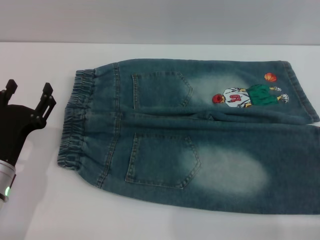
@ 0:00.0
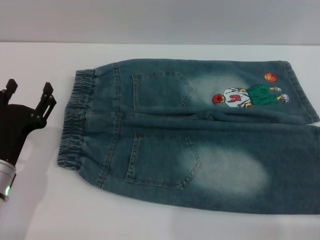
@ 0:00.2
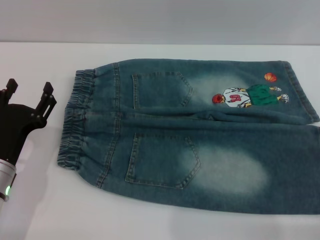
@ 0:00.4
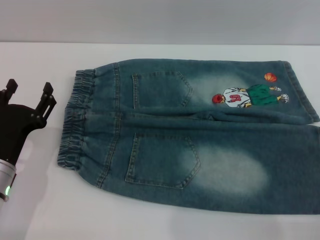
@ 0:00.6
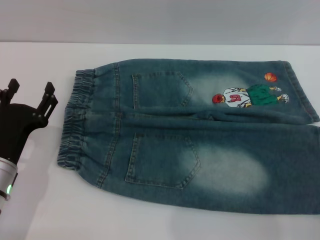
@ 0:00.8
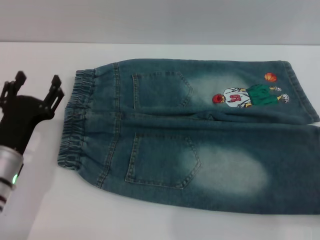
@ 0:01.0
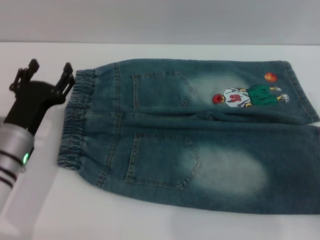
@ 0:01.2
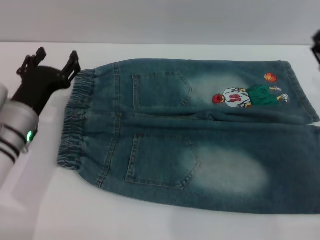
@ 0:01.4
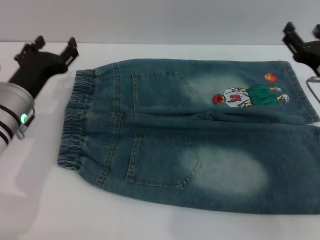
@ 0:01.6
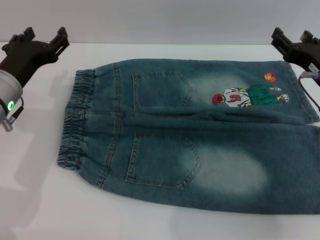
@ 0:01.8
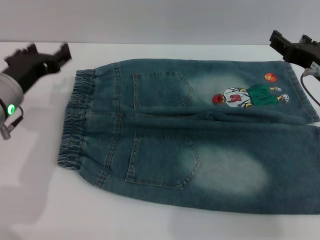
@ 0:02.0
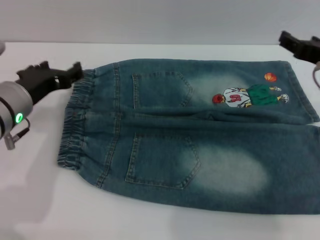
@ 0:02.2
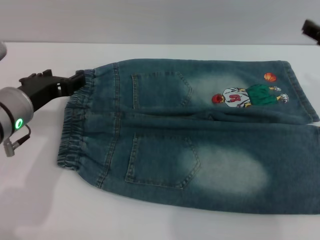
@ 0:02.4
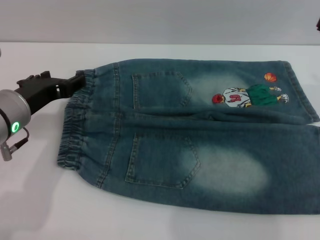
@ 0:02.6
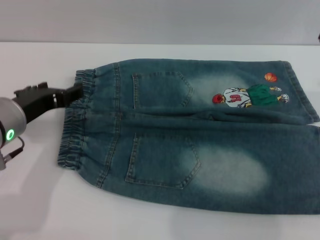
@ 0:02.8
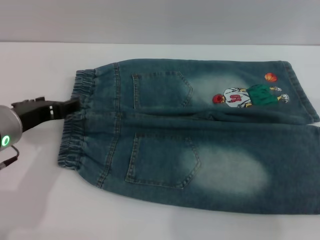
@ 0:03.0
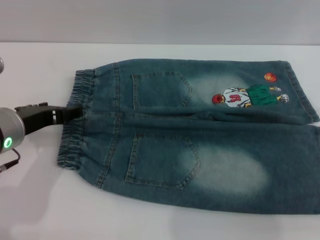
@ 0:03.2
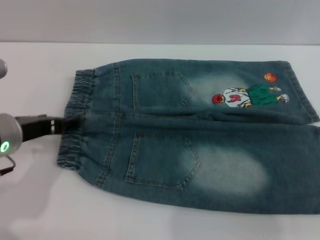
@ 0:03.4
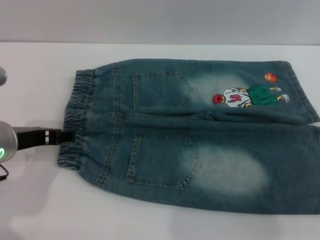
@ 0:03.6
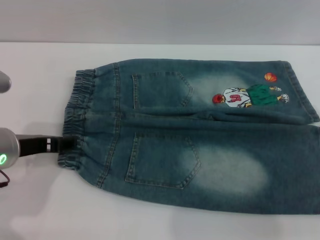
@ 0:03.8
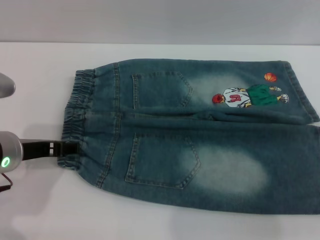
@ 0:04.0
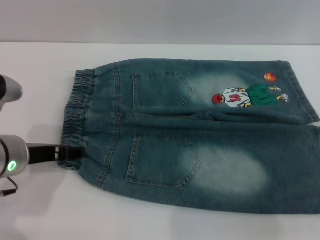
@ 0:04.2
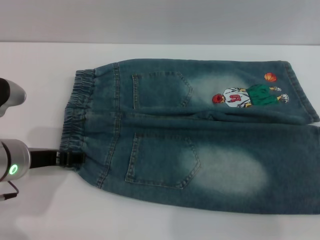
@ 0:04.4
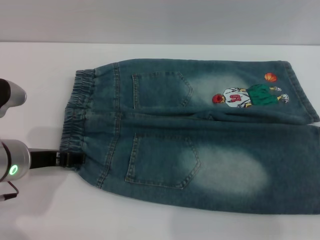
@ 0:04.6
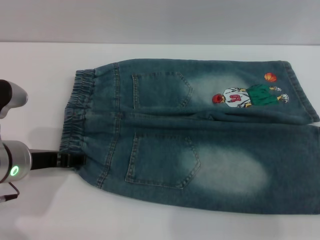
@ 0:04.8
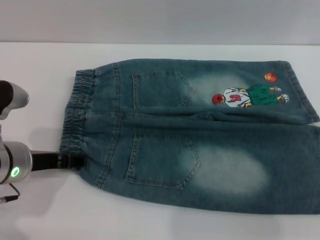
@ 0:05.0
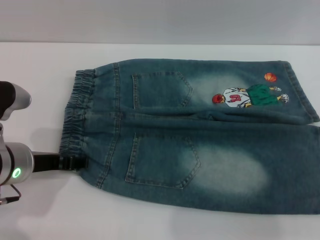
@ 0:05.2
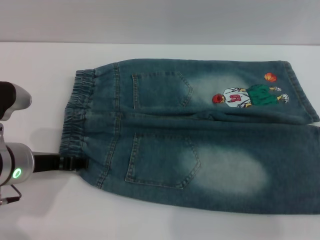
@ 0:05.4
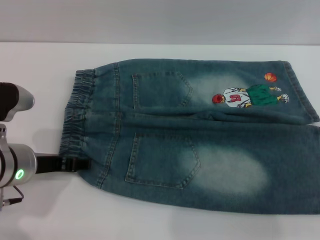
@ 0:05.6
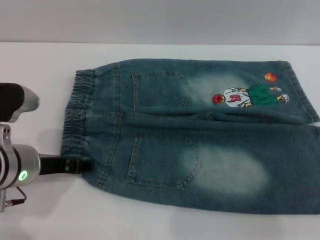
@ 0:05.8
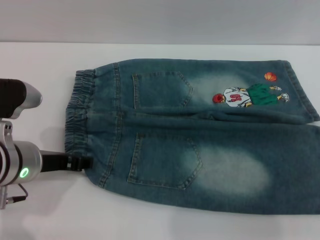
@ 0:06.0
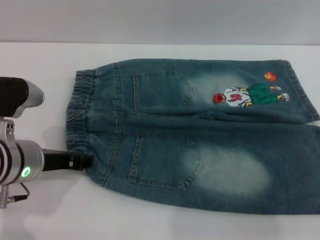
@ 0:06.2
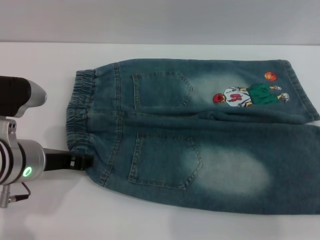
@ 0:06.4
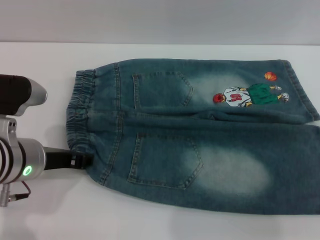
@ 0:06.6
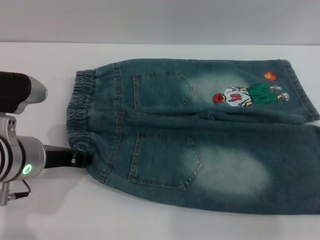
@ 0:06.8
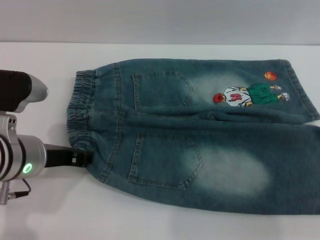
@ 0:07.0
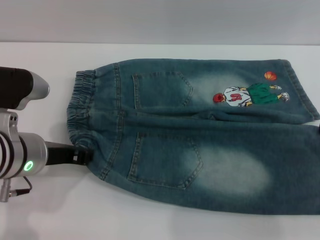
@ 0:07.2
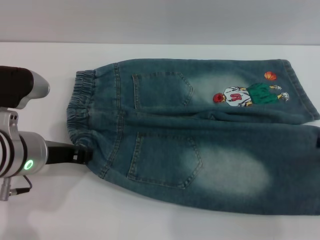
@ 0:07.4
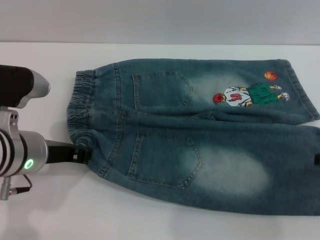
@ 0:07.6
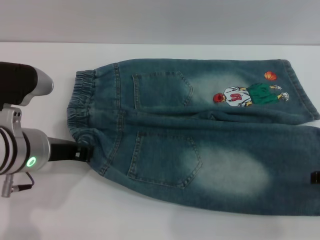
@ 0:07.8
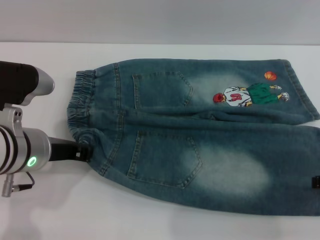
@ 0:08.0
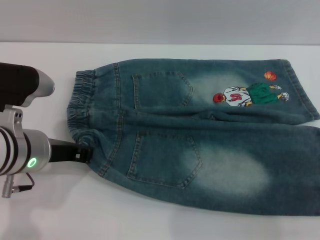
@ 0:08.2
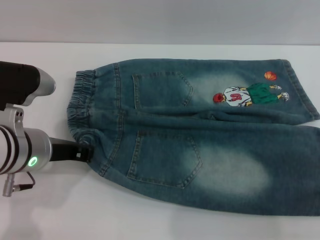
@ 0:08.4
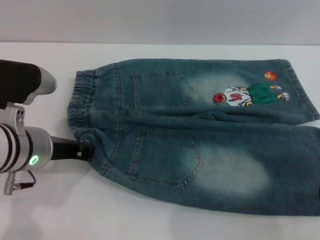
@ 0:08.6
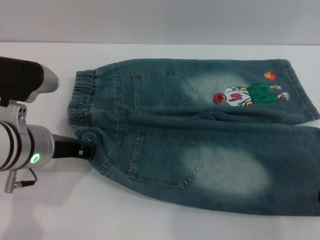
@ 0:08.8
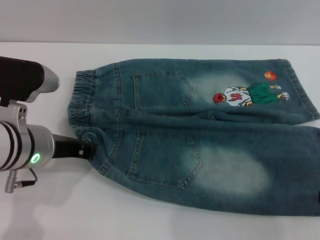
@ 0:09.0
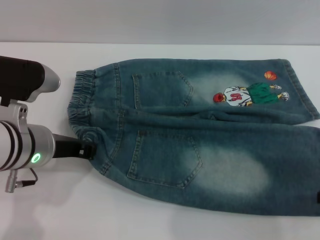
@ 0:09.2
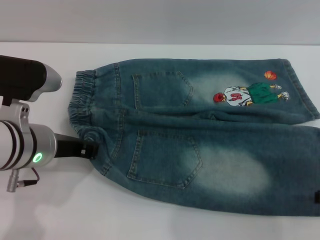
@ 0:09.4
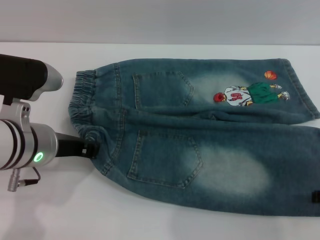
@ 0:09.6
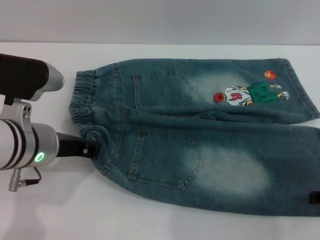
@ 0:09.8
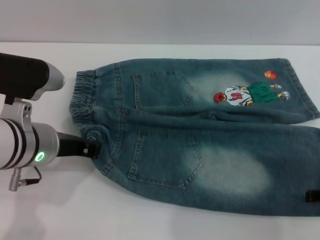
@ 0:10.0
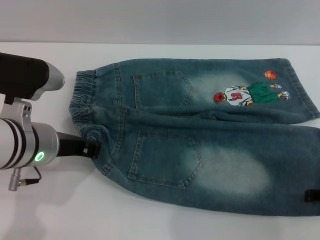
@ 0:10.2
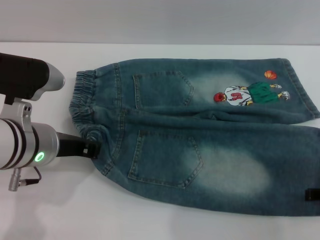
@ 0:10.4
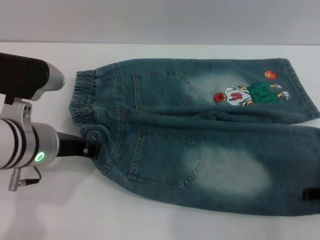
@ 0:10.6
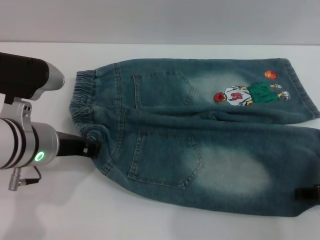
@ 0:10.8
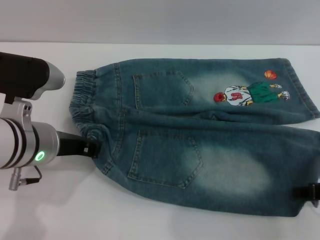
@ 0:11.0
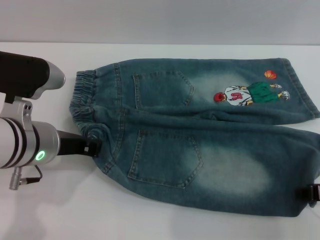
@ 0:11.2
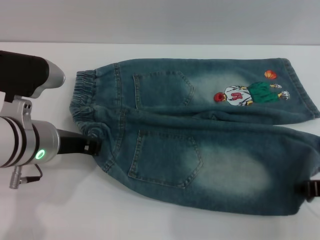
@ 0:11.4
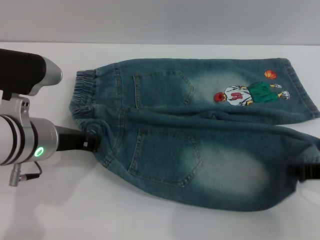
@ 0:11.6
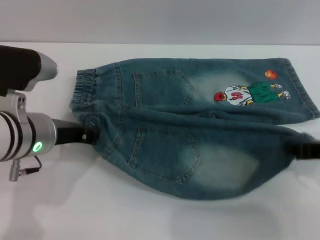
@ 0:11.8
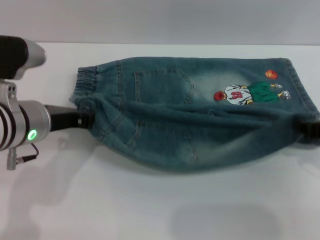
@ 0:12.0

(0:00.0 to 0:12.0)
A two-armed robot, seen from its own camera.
0:00.0 - 0:01.6: The right gripper shifts approximately 15 cm forward and to the left, while the left gripper goes roughly 10 cm forward and upward.
0:01.6 - 0:03.0: The left gripper moves upward and backward, approximately 10 cm, while the right gripper moves upward, about 10 cm.
0:04.4 - 0:06.0: There are only small adjustments of the grippers.
0:06.0 - 0:07.6: The left gripper closes up.
0:07.6 - 0:10.4: The grippers stay close to where they were, moving slightly.
0:10.4 - 0:12.0: The right gripper ends up about 5 cm from where it was, and closes.

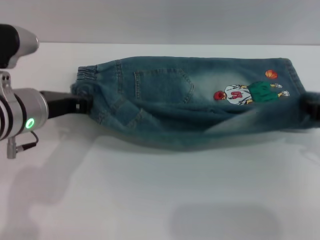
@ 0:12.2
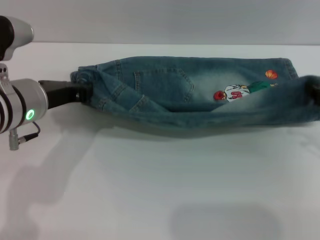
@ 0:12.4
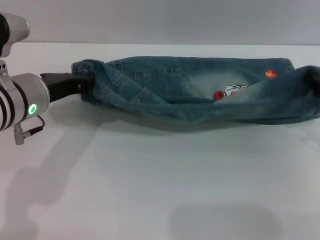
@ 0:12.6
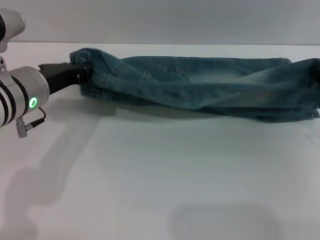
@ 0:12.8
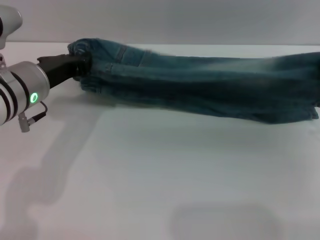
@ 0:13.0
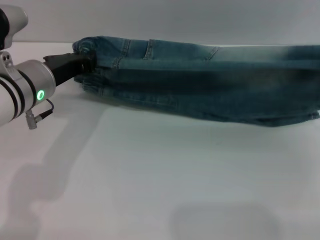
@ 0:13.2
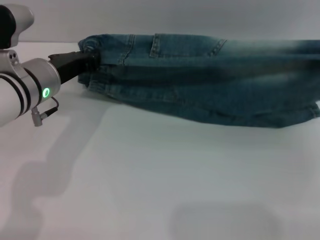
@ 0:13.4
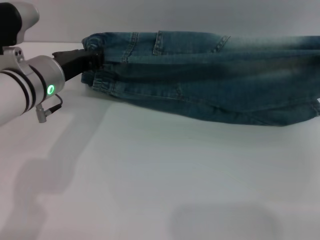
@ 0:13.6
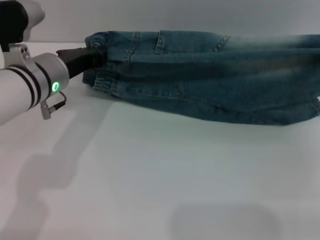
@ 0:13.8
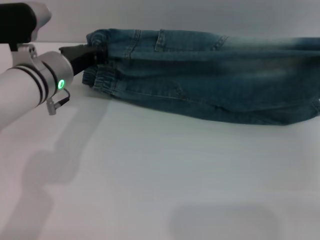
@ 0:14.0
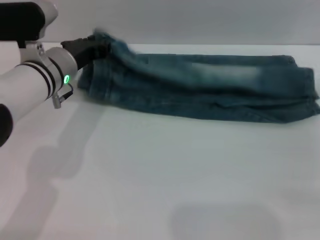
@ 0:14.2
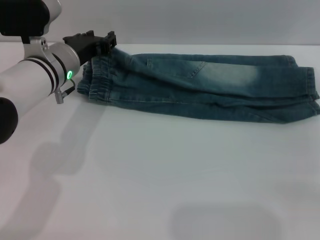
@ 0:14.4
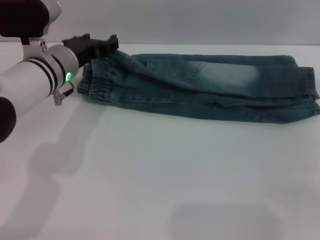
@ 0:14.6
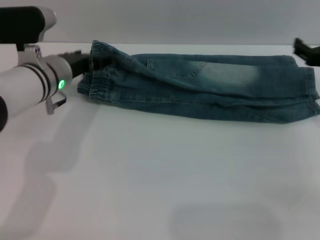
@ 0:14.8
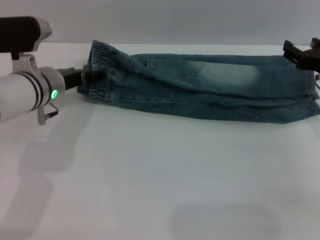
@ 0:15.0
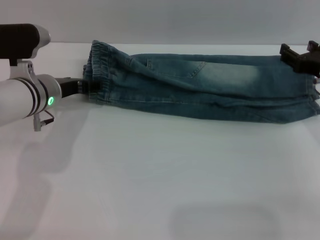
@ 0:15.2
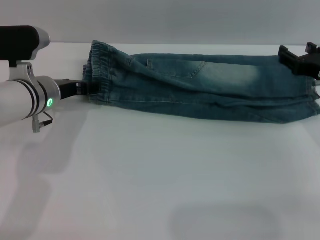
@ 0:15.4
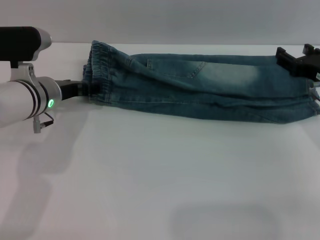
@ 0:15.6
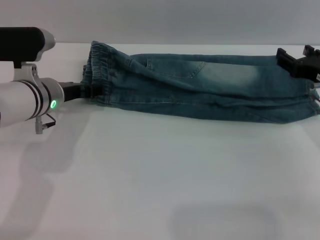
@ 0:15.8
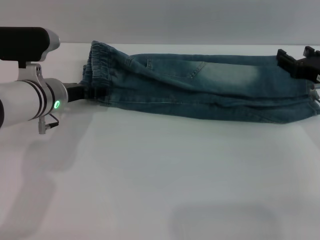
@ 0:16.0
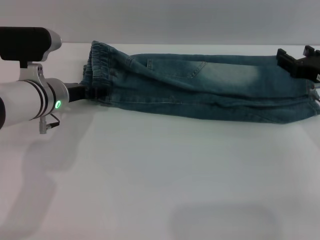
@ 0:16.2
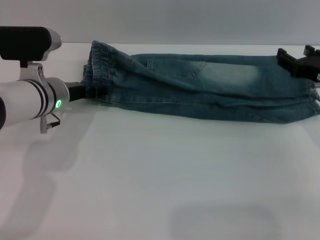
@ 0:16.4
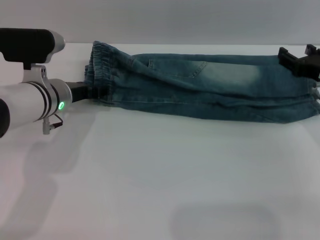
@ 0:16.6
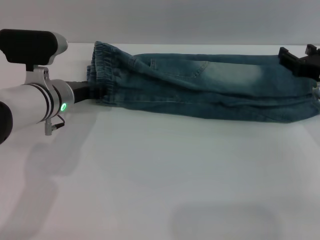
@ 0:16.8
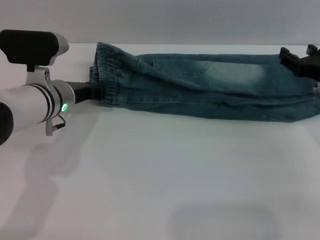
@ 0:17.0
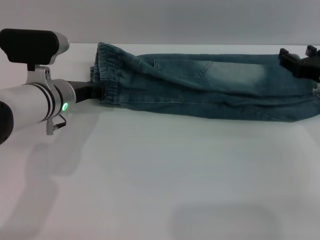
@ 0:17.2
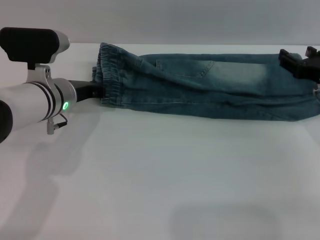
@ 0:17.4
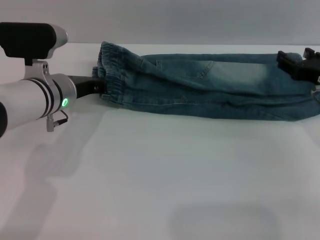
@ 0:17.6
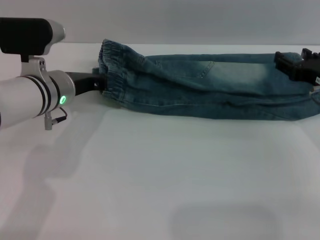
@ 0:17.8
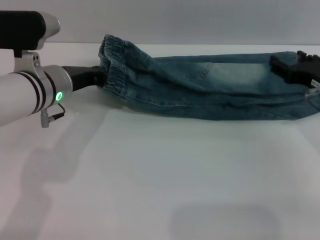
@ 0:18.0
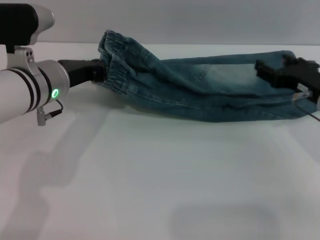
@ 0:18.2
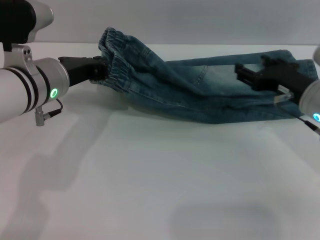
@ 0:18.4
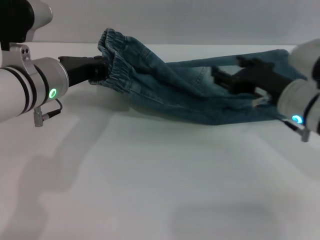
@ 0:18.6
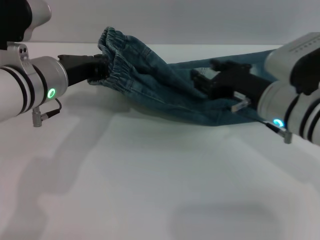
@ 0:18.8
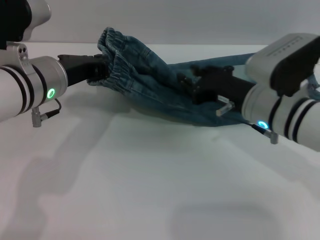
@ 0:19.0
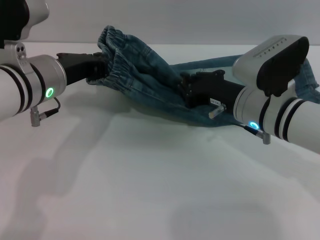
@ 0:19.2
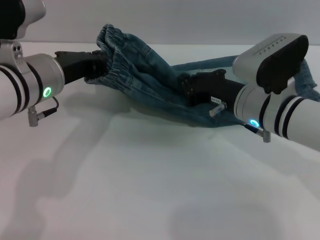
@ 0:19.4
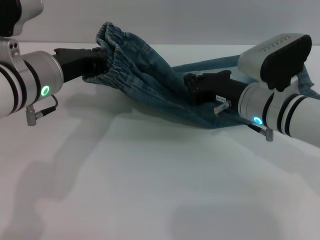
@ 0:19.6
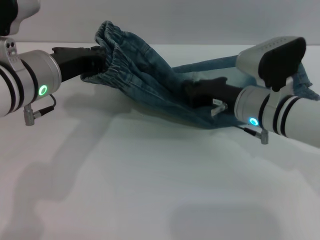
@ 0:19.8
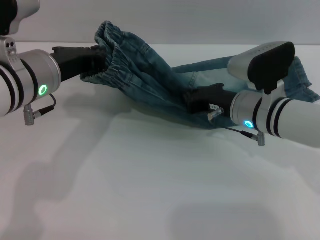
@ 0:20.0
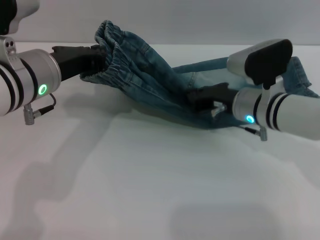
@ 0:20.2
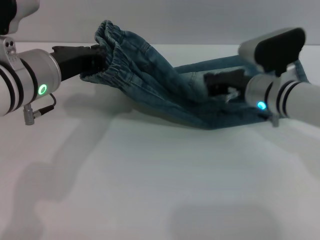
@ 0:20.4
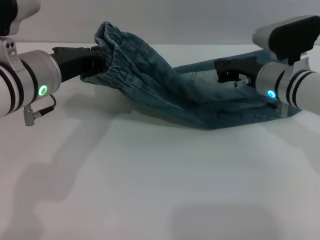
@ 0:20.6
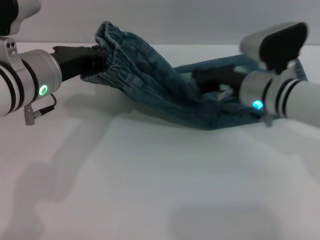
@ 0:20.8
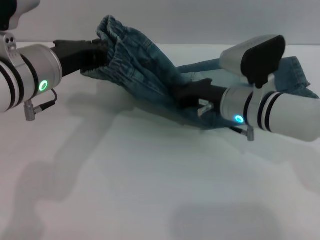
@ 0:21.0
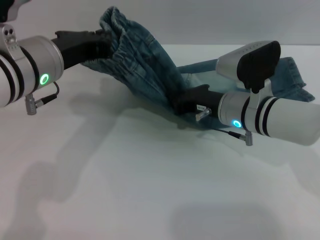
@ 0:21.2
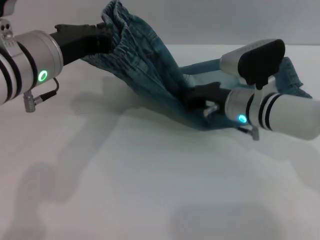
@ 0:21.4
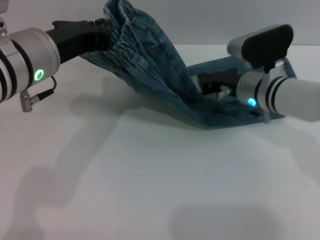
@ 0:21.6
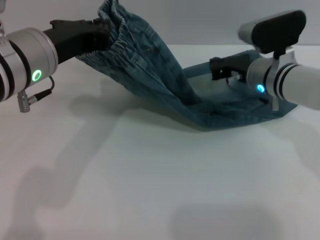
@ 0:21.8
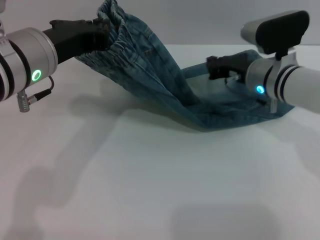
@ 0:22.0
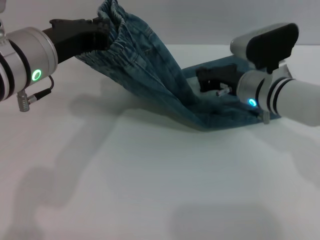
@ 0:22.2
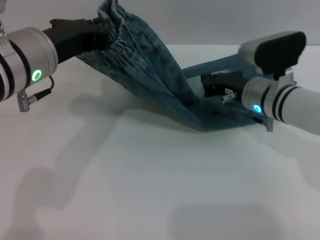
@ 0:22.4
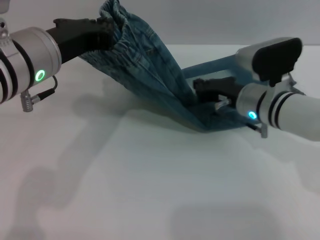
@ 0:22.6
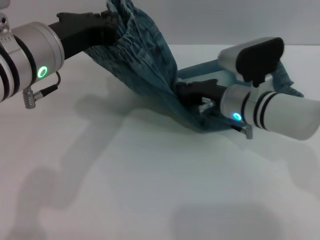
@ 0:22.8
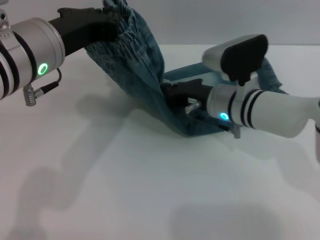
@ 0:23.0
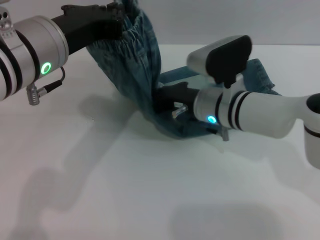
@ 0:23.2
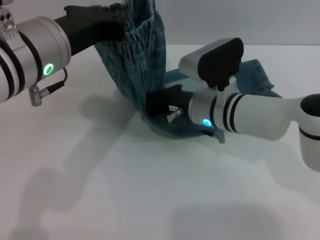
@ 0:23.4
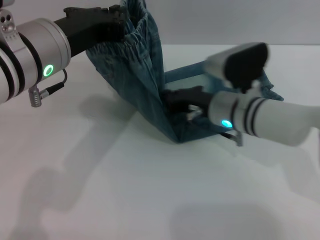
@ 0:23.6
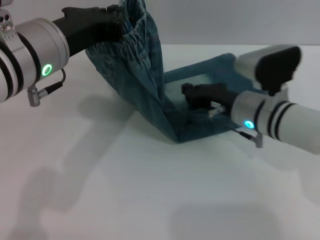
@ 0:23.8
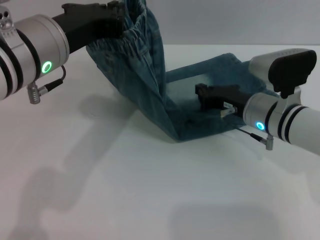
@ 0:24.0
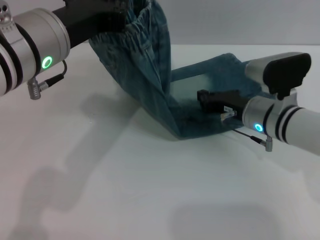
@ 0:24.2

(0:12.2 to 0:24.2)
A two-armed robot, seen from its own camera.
Step, 0:12.2 - 0:14.6: Fold the bottom of the pants upward with both grippers.
0:12.2 - 0:13.8: The right gripper moves approximately 5 cm; the left gripper shifts about 5 cm forward.
0:13.8 - 0:15.2: The left gripper shifts by about 5 cm, and opens; the right gripper ends up roughly 5 cm from where it was, and opens its fingers.
0:15.2 - 0:16.6: The grippers stay close to where they were, moving slightly.
0:16.6 - 0:18.2: The left gripper shifts approximately 5 cm upward, and closes up.
0:18.2 - 0:19.8: The left gripper ends up approximately 5 cm from where it was. Meanwhile the right gripper shifts about 10 cm to the left, and closes up.
0:19.8 - 0:21.2: The grippers stay close to where they were, moving slightly.
0:22.6 - 0:24.2: The right gripper moves approximately 5 cm to the left and comes back.
